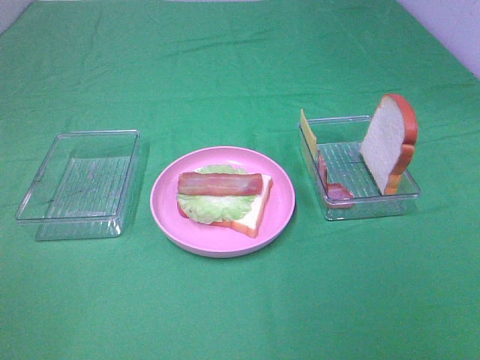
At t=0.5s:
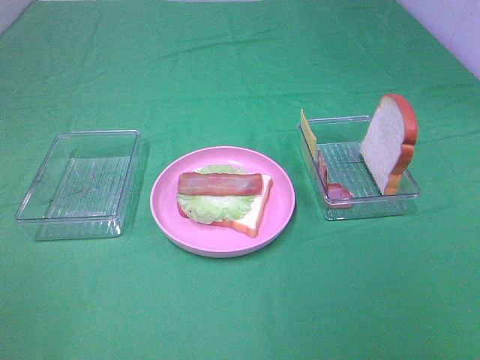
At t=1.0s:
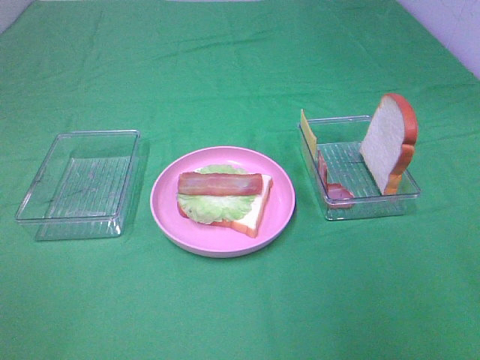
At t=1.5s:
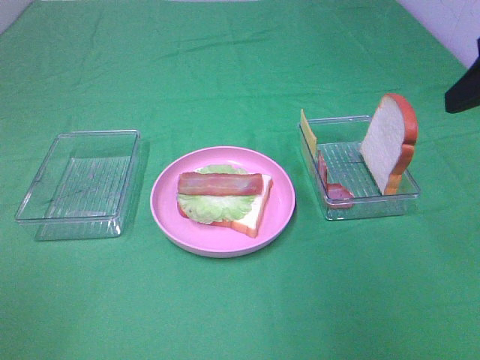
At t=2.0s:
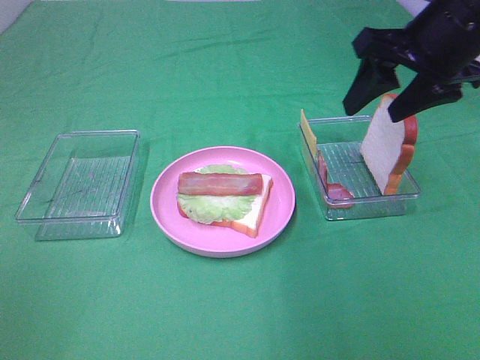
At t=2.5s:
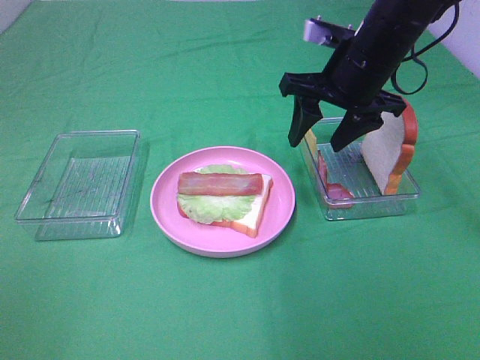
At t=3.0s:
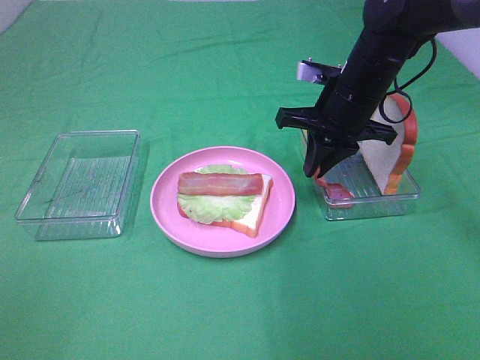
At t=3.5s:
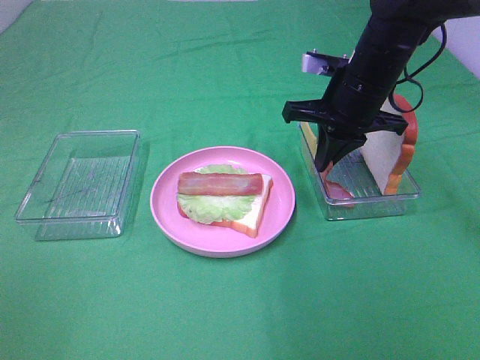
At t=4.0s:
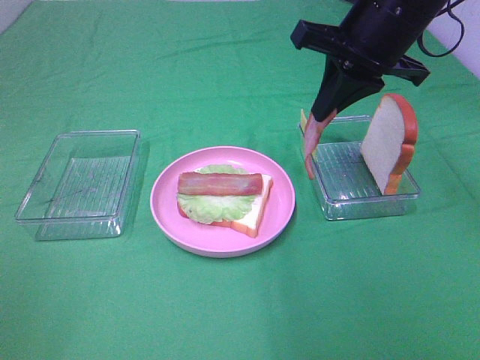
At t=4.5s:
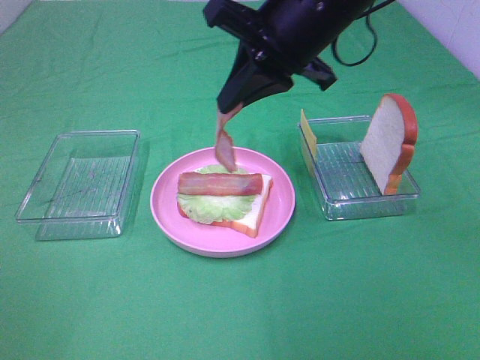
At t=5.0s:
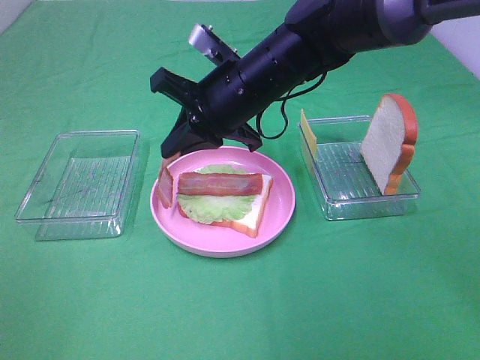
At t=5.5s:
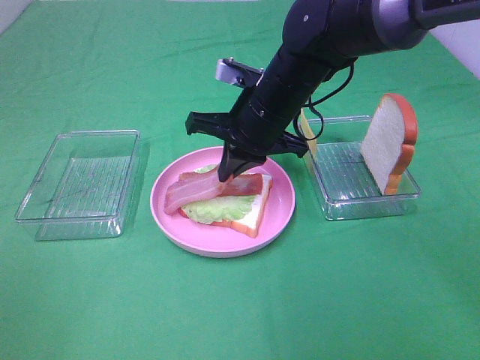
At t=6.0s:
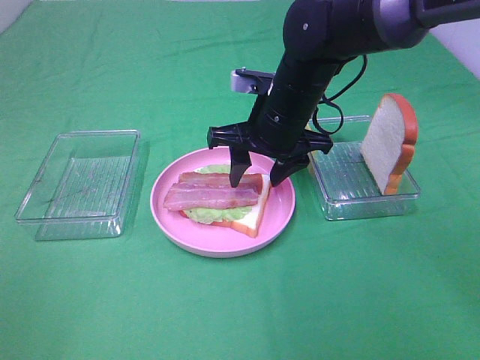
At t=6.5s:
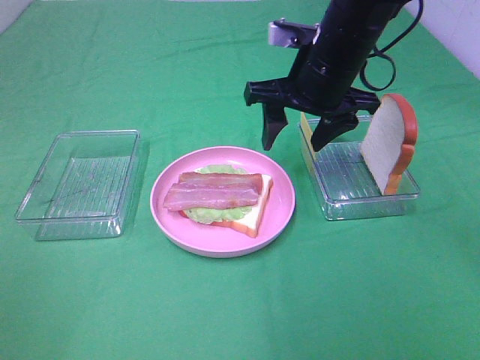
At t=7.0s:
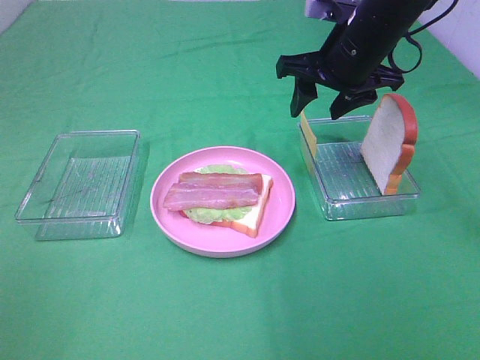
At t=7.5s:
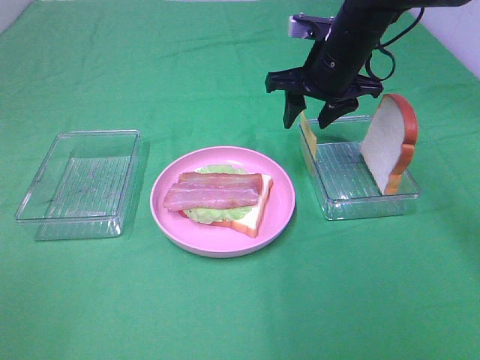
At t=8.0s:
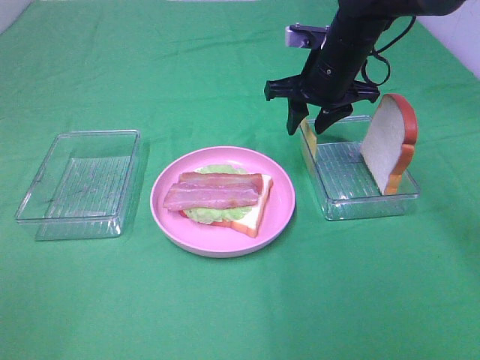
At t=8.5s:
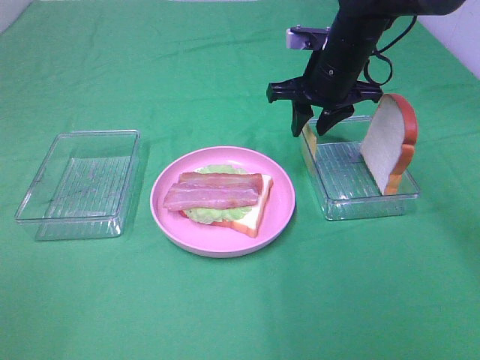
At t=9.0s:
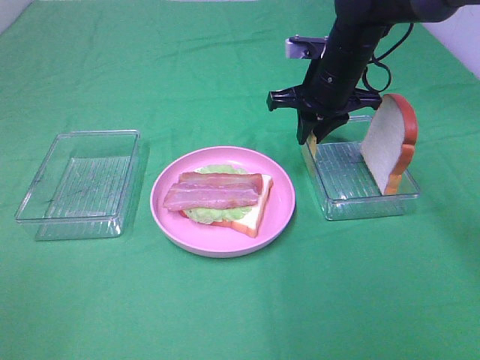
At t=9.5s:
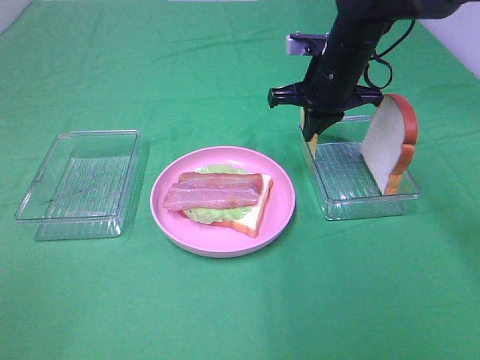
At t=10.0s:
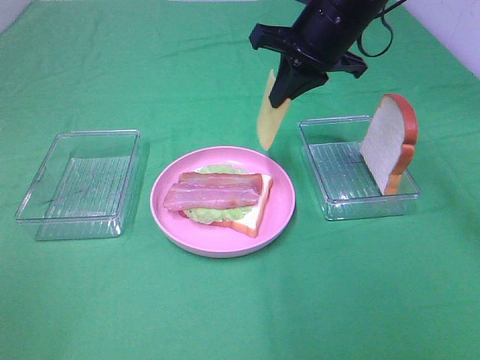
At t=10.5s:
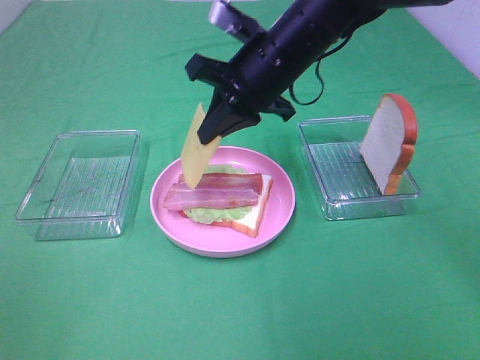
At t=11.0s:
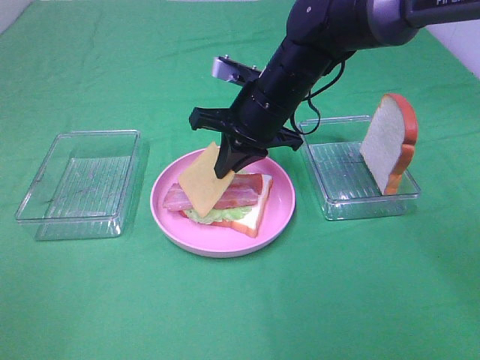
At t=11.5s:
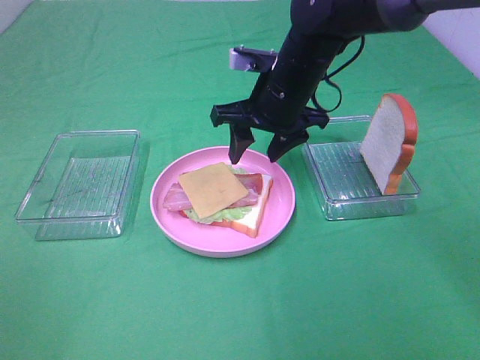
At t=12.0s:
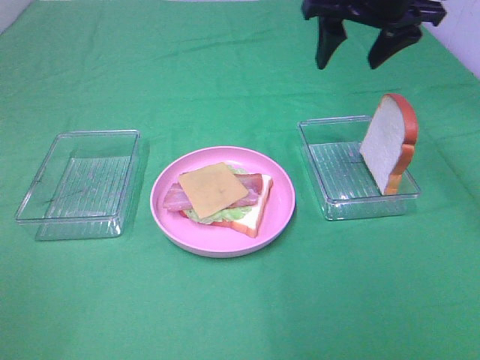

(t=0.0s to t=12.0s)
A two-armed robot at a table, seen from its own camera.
Task of the whole recording: Make sandwiches.
Step, t=0.0s - t=3.0s: Right hand:grab the bacon.
Step, t=3.5s - t=6.0s: Right hand:place bacon on bacon.
Step, t=6.5s - t=9.0s: Right hand:grab the cheese slice.
Step, t=9.5s - t=11.0s: Right hand:place the cheese slice on top of the bacon.
t=0.0s - t=2.0s: The right gripper heads forward, covering approximately 35 cm.
t=2.0s - t=4.0s: The right gripper goes approximately 5 cm to the left, goes downward and returns, approximately 10 cm each way, and closes up.
t=4.0s - t=6.0s: The right gripper heads downward and to the left, covering roughly 15 cm, and opens up.
t=6.0s - t=8.0s: The right gripper moves forward and to the right, some 10 cm.
t=8.0s - t=10.0s: The right gripper shifts roughly 5 cm upward, and closes.
t=10.0s - t=12.0s: The right gripper moves to the right and upward, some 10 cm, and opens.

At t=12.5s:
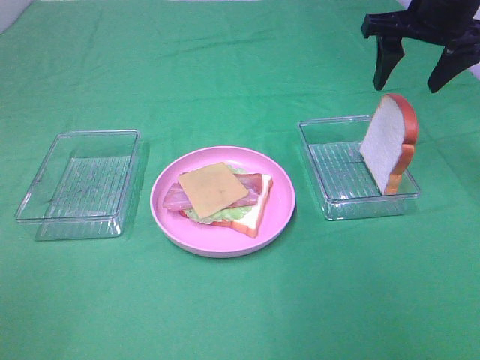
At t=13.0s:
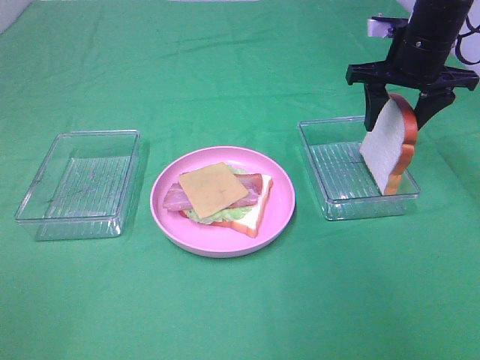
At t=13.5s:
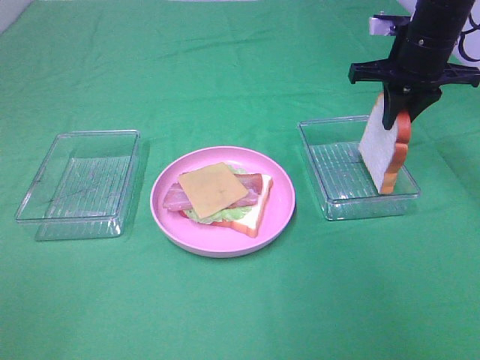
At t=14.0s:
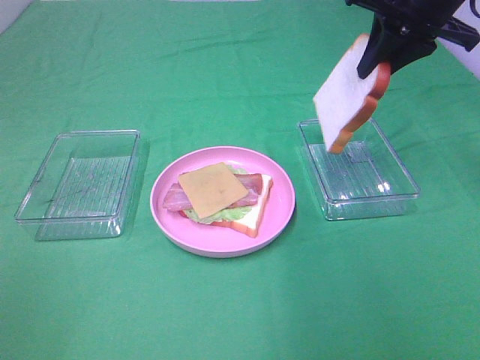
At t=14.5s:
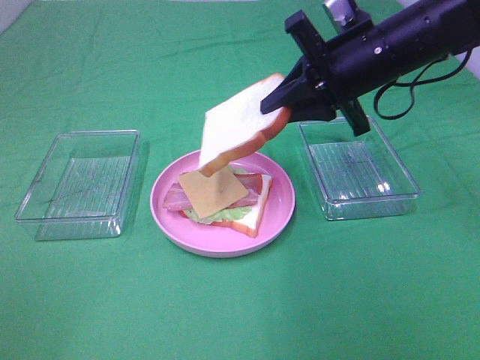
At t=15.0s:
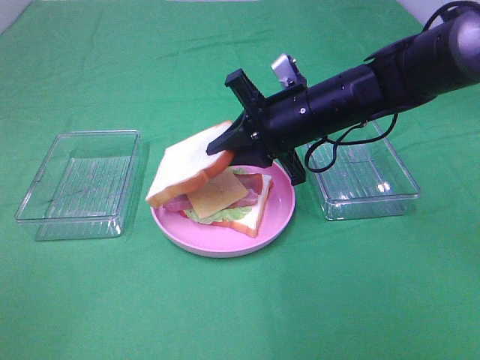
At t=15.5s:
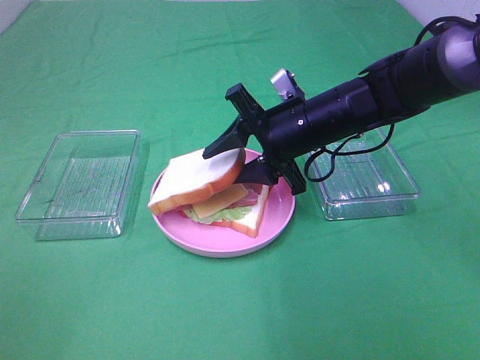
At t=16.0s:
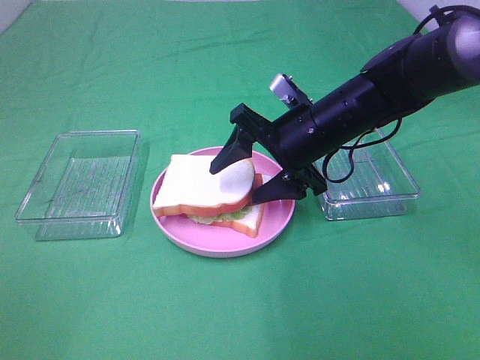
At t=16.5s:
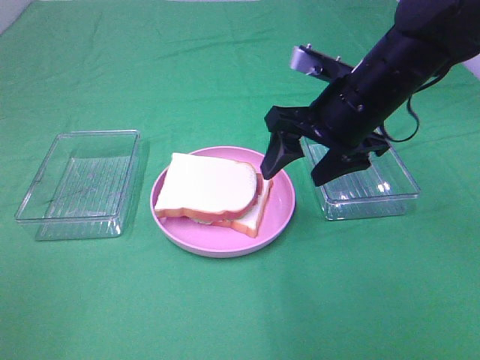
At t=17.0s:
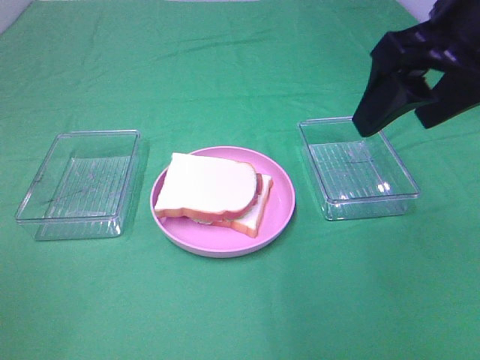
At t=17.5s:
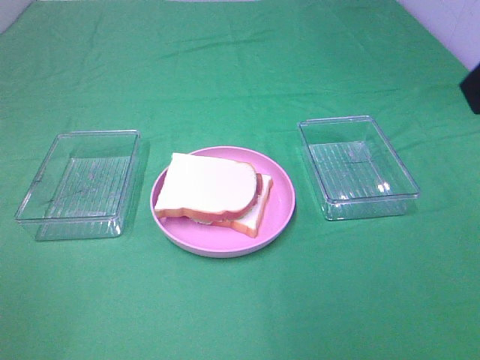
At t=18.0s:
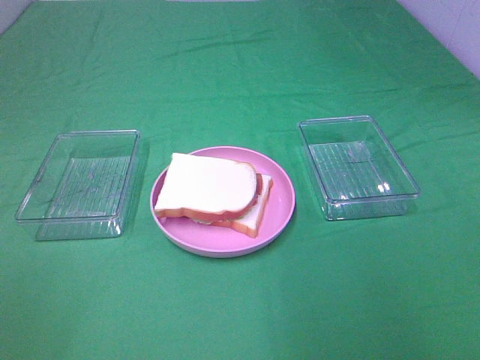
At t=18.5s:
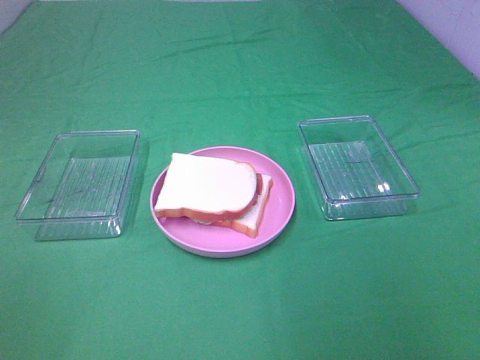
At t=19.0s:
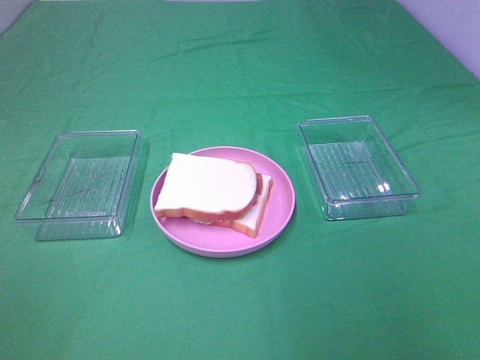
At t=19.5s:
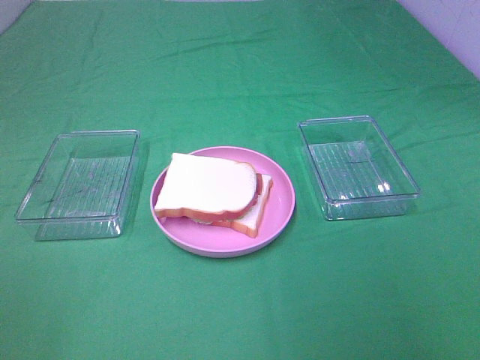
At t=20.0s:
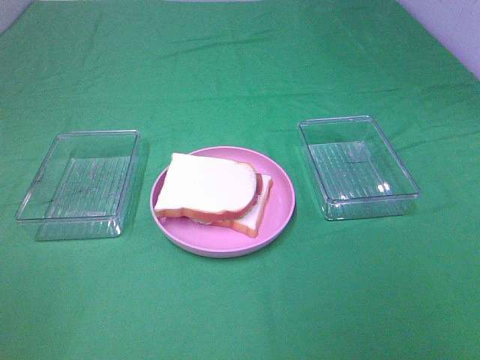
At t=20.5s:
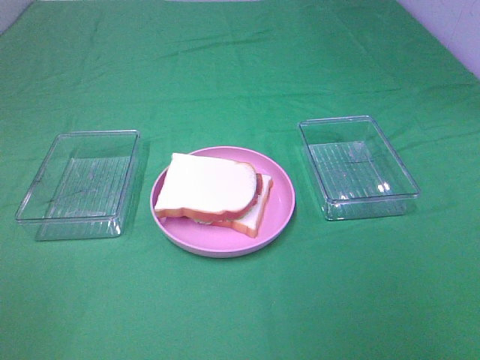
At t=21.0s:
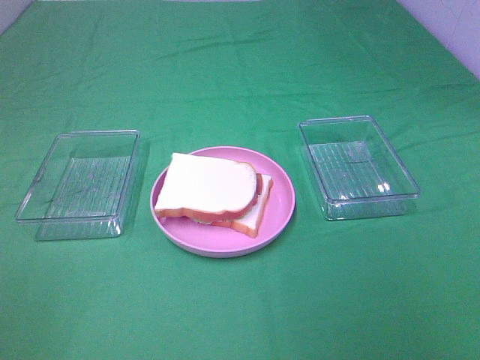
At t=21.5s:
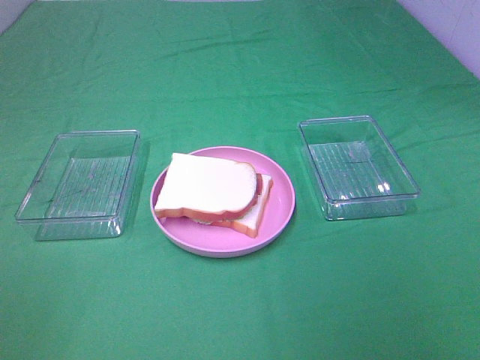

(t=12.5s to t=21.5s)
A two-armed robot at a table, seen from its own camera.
Task of the whole recording: Make sandwiches.
Step, t=13.5s - t=16.5s: Right hand:place the bread slice on the cheese slice.
t=12.5s - t=14.5s: The right gripper shifts some 10 cm to the left, backward and downward, and closes its fingers.
t=14.5s - t=17.0s: The right gripper shifts roughly 15 cm backward and upward, and opens.
t=17.0s - t=19.5s: The right gripper heads backward and to the right, covering about 25 cm.

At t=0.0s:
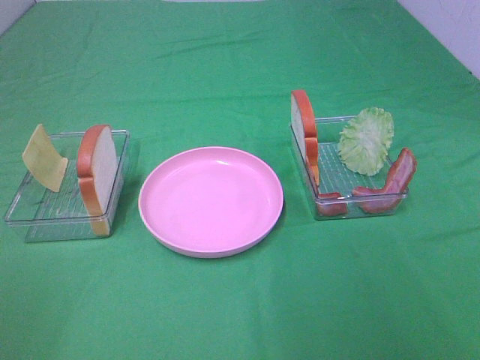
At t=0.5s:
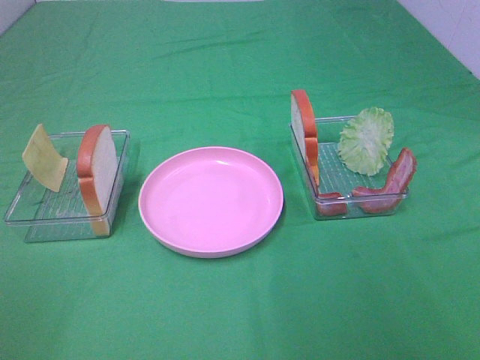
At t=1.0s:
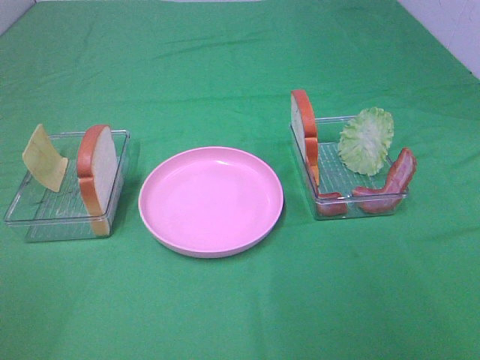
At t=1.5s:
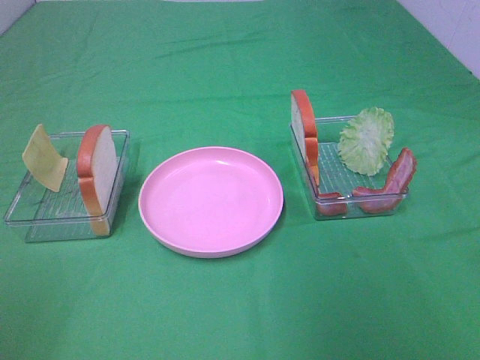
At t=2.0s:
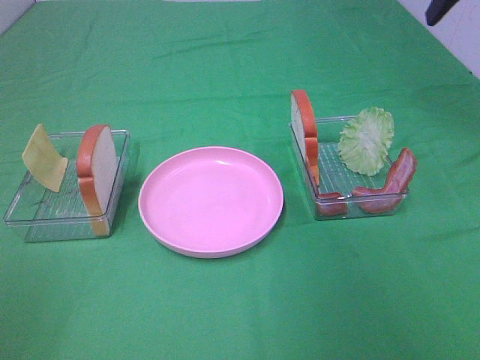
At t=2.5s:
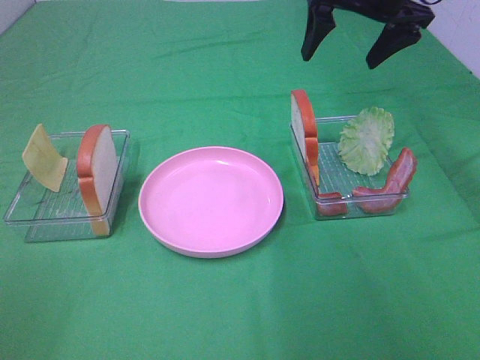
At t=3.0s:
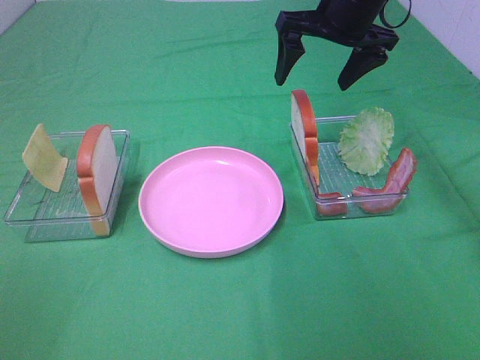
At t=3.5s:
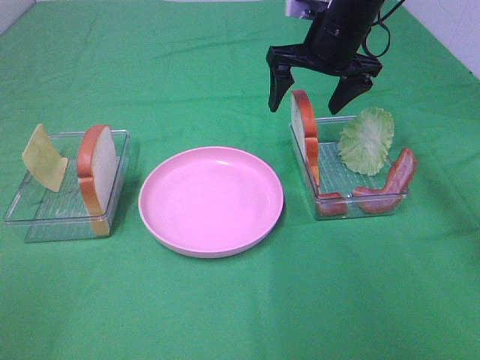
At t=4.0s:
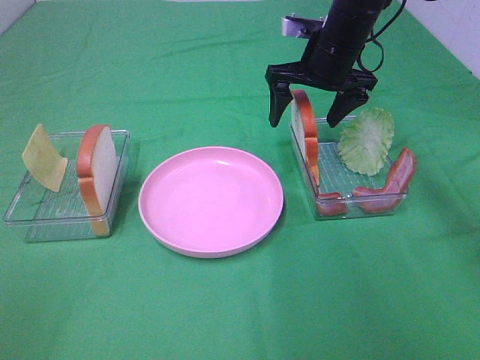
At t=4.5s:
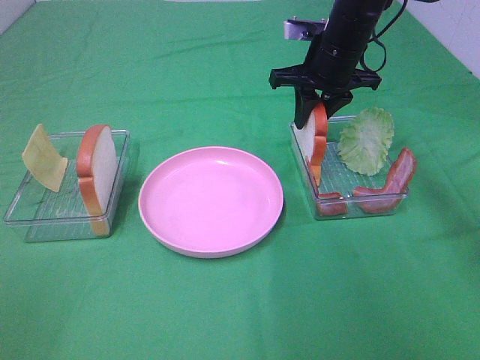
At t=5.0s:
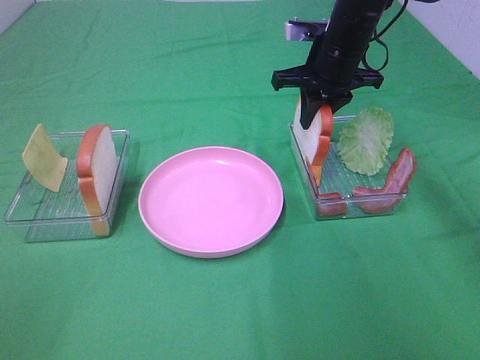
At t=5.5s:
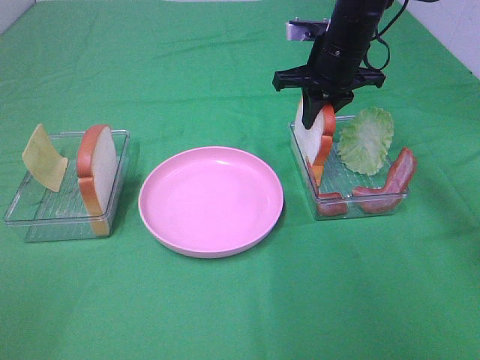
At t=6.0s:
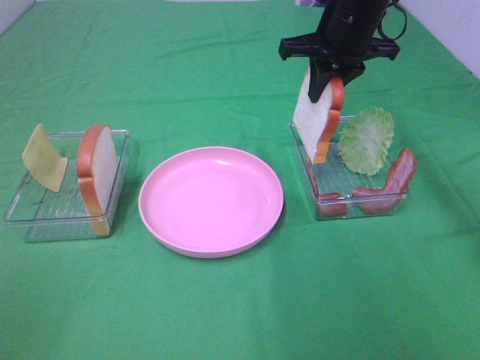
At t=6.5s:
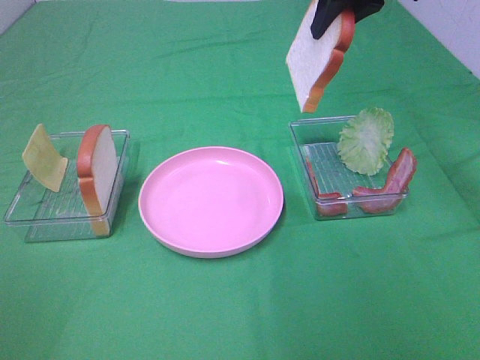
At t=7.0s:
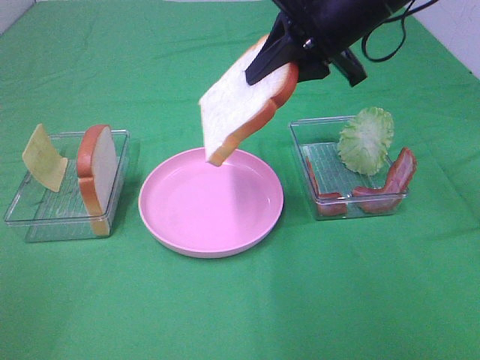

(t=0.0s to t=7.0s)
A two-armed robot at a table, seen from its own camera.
Task of the whole recording: Make sandwiches.
Step, t=0.0s - t=4.5s: Right hand:grab the bread slice.
t=2.0s - t=3.5s: The right gripper is displaced to the left, downward and forward by roughly 25 cm.
t=3.5s - t=5.0s: The right gripper closes its fingers.
t=5.0s - t=7.0s: The right gripper moves backward and upward, approximately 15 cm.
